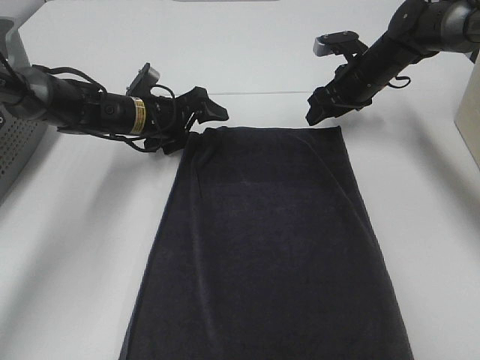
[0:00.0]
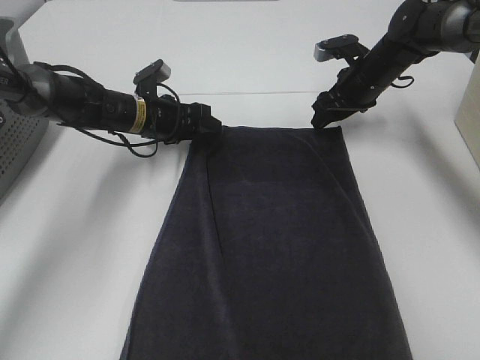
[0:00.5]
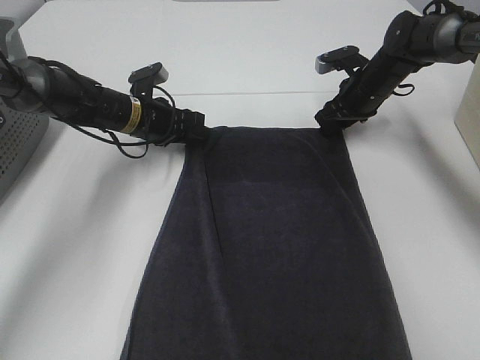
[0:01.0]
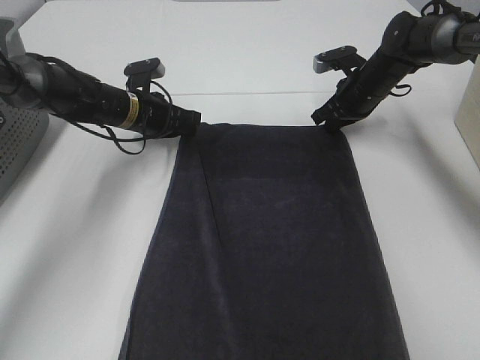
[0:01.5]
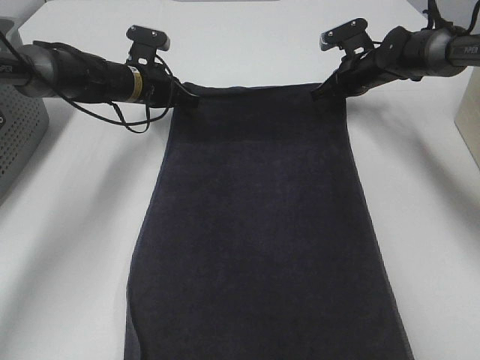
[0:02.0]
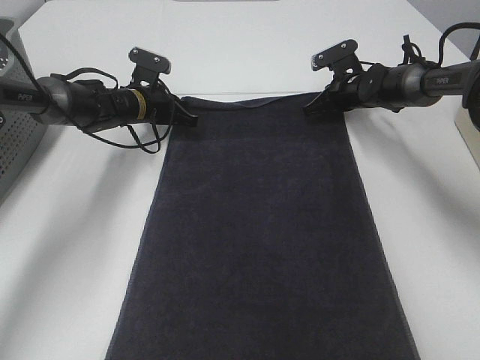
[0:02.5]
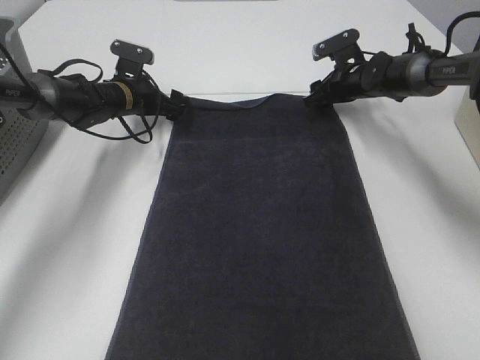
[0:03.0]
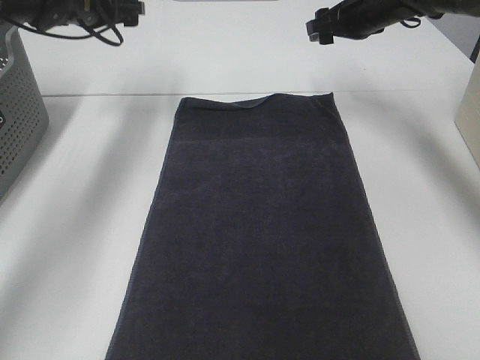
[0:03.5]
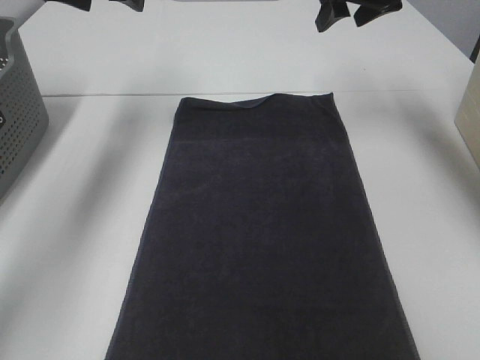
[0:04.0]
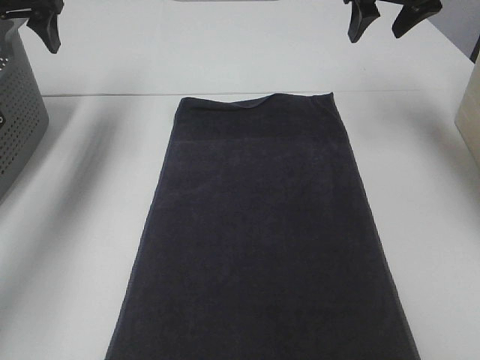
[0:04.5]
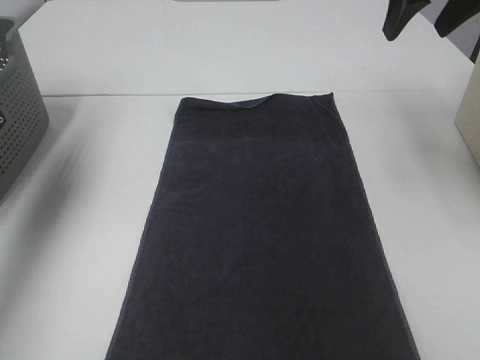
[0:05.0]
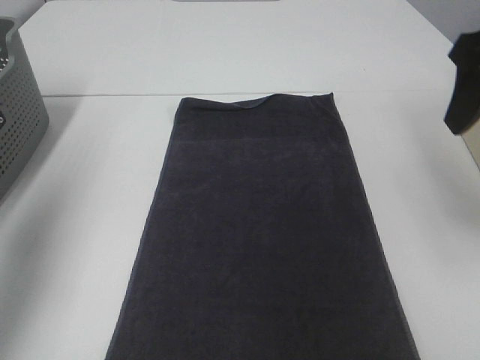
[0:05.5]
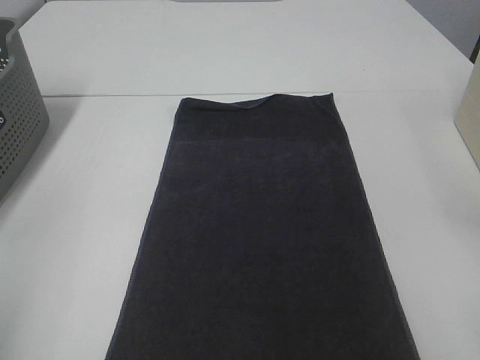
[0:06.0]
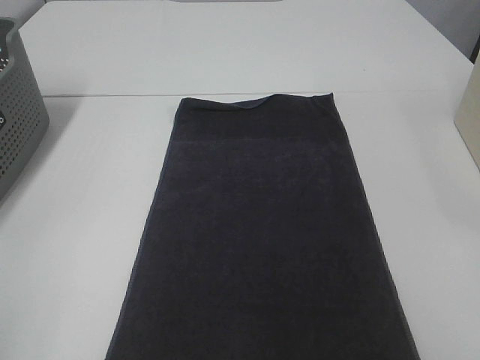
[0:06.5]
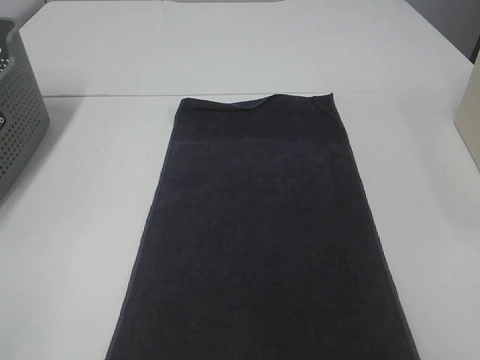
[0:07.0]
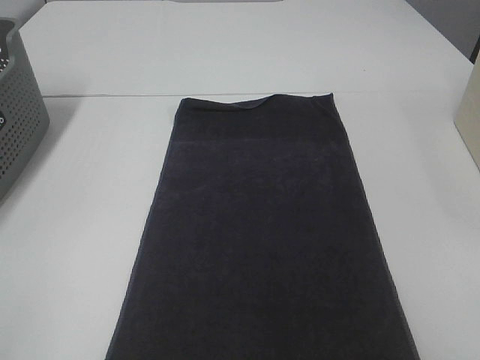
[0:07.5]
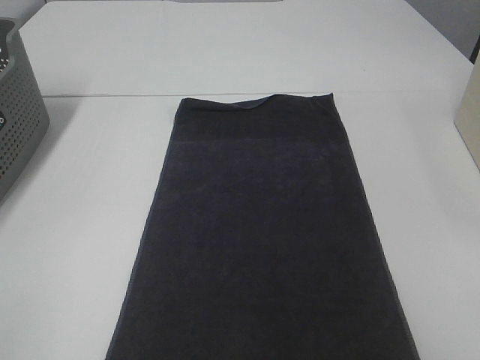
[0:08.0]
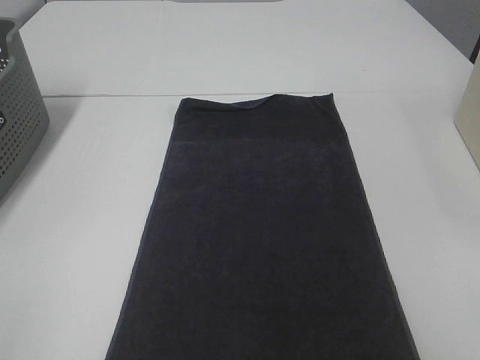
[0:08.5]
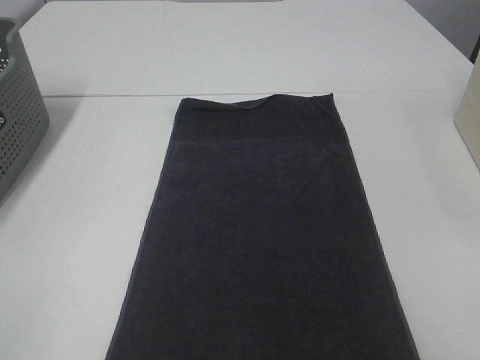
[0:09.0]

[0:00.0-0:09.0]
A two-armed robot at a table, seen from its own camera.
Task of the whole recording: Remove the towel and place it.
0:00.0 to 0:02.0: The left gripper heads forward, covering about 5 cm, and closes, while the right gripper closes up.
0:02.0 to 0:04.5: The right gripper shifts approximately 20 cm upward, and opens its fingers. Meanwhile the left gripper is displaced upward and to the left by about 25 cm, and opens its fingers.
0:04.5 to 0:07.0: Both grippers move backward, some 50 cm.

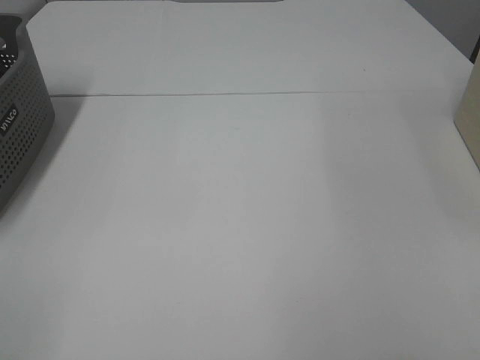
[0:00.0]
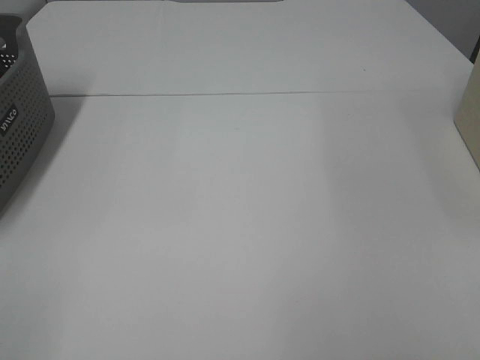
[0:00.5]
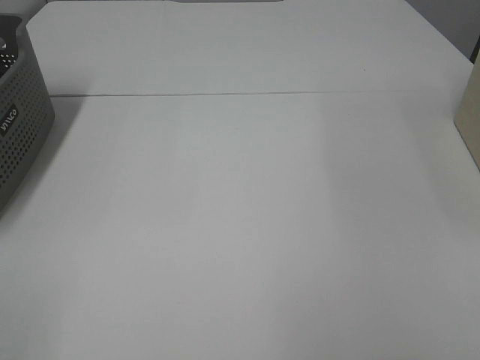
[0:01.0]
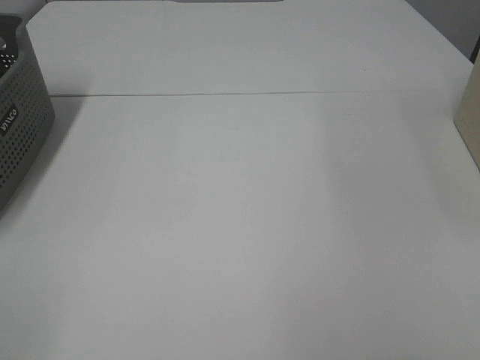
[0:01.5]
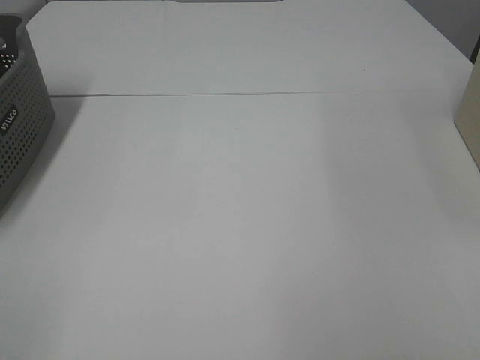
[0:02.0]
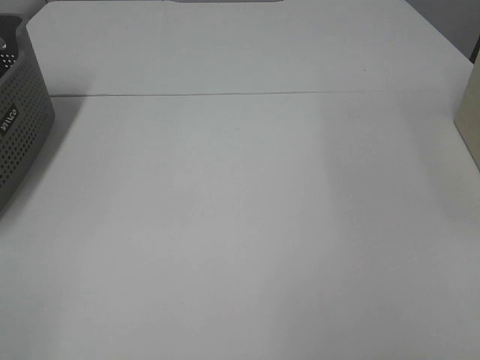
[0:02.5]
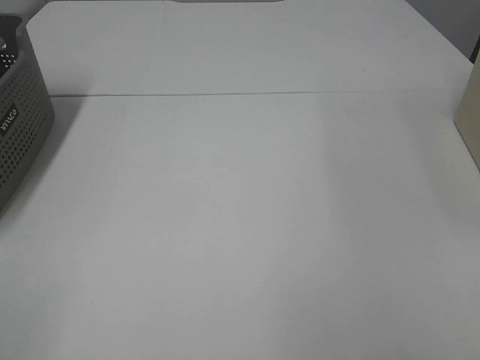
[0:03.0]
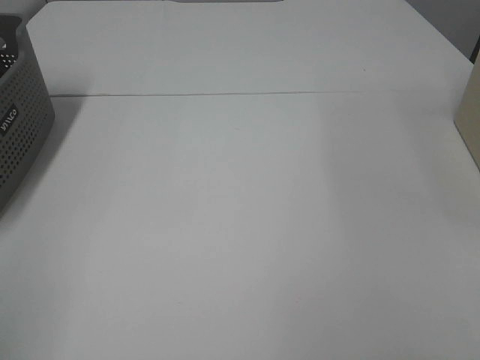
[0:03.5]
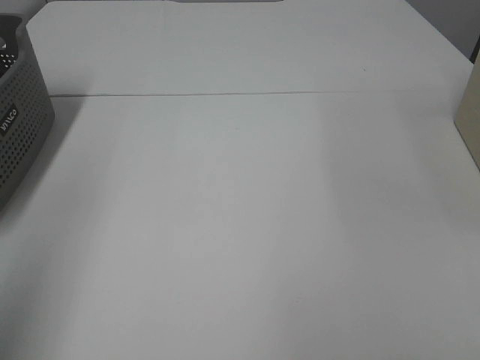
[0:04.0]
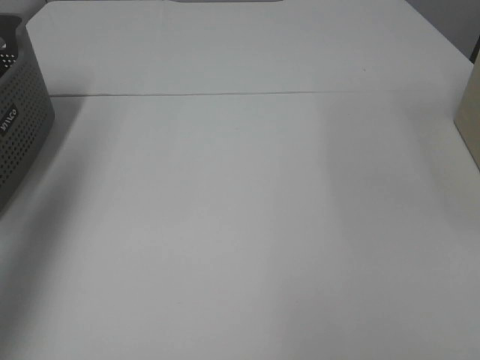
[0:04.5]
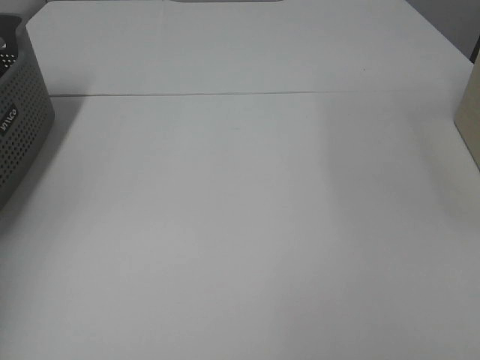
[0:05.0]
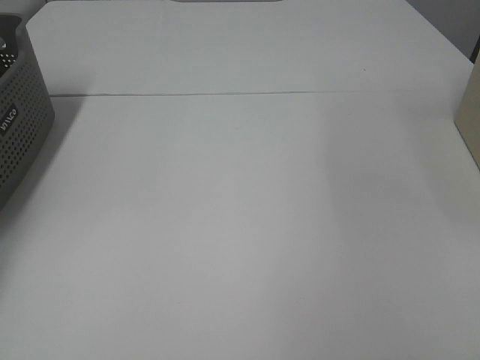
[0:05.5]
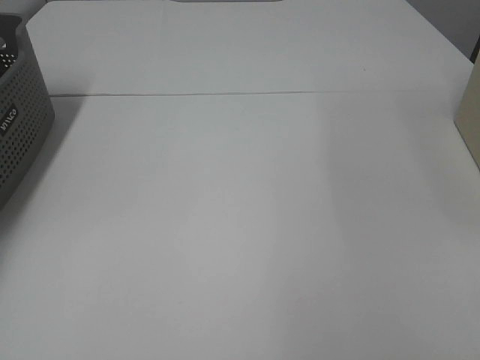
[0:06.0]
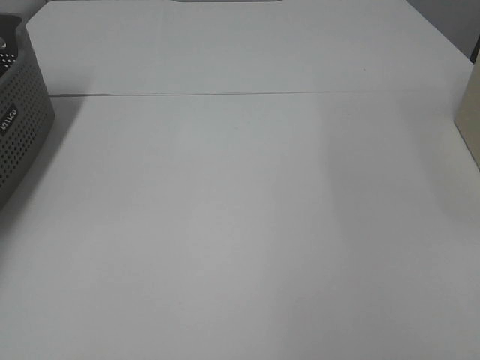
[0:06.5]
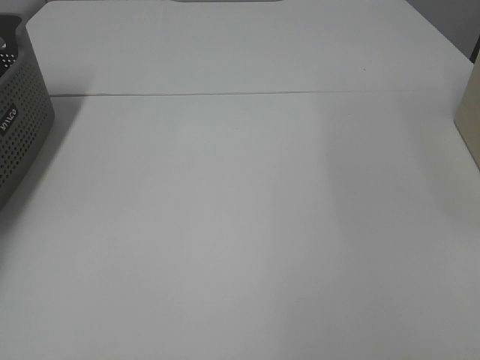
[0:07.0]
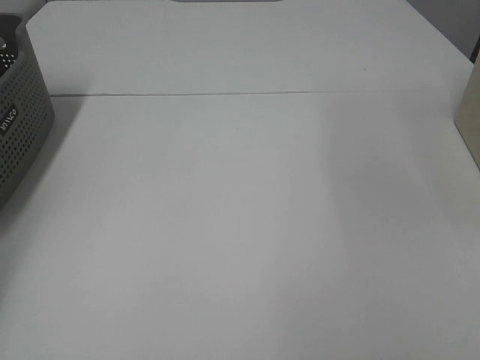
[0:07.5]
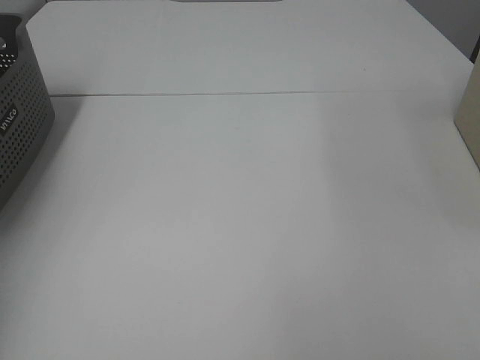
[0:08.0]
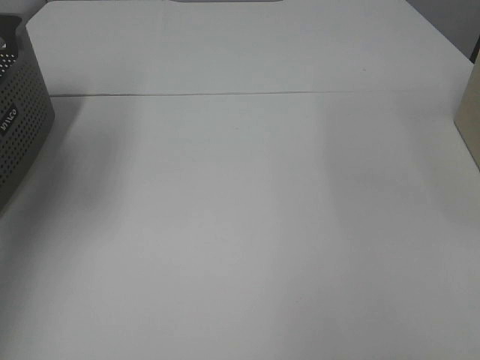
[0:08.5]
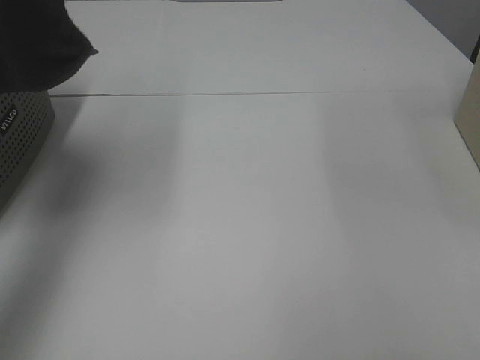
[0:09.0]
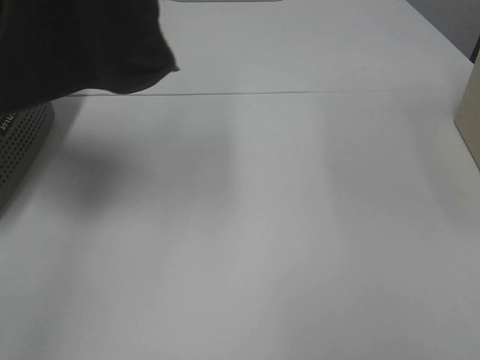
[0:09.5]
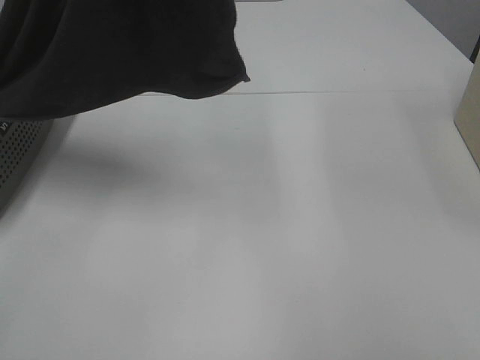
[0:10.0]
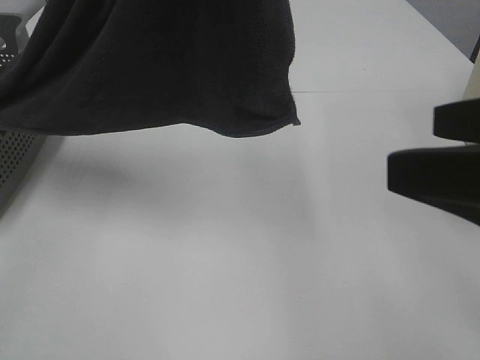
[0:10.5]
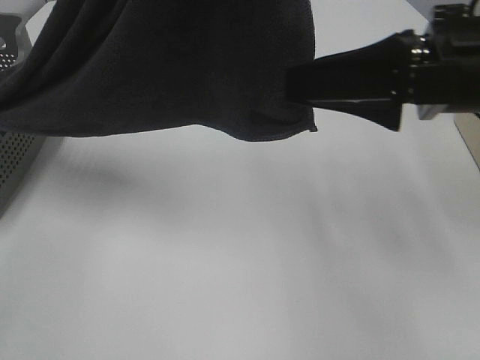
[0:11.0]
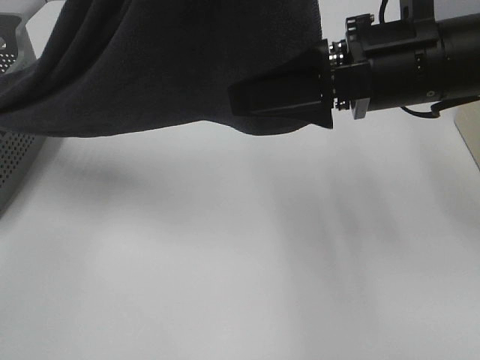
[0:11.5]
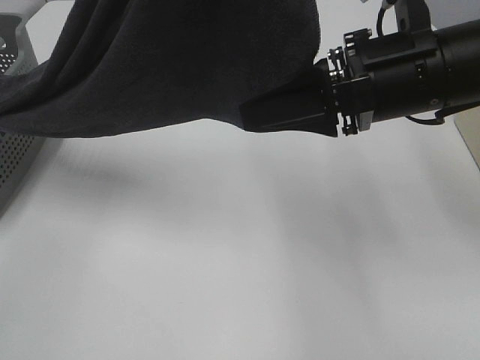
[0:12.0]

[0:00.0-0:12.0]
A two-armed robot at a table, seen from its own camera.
Task of the whole recording: Remove the towel and place it.
0:00.0 to 0:02.0: Neither gripper changes place.
0:02.0 to 0:04.0: The left gripper goes about 15 cm upward and forward.
0:04.0 to 0:06.0: The left gripper is displaced forward, downward and to the left by about 40 cm.
0:06.0 to 0:08.0: The left gripper moves upward, about 25 cm, and closes.
0:08.0 to 0:10.0: The left gripper goes about 25 cm to the right.
0:10.0 to 0:12.0: The right gripper is displaced forward and to the left by roughly 25 cm, and closes; the left gripper changes place by about 5 cm.

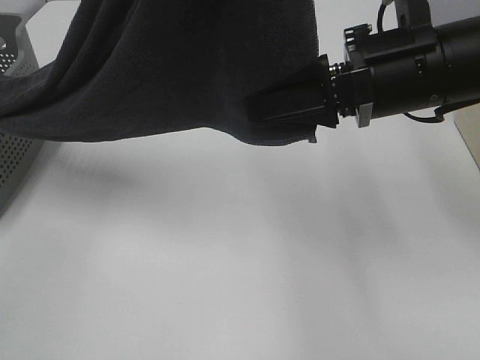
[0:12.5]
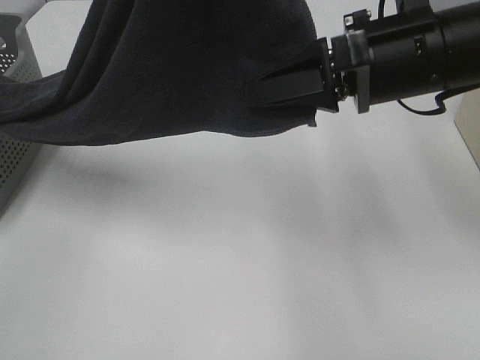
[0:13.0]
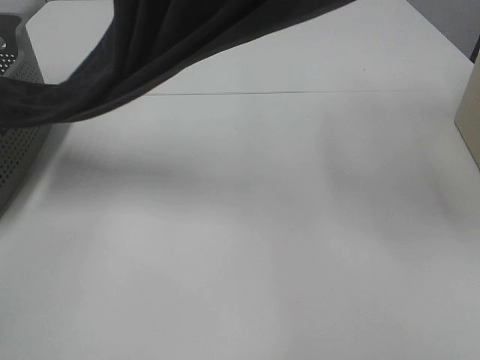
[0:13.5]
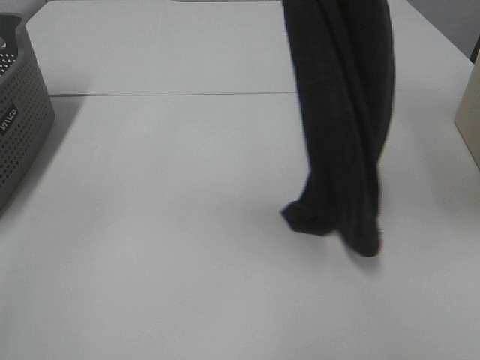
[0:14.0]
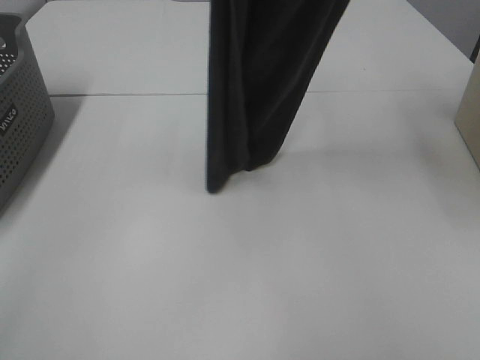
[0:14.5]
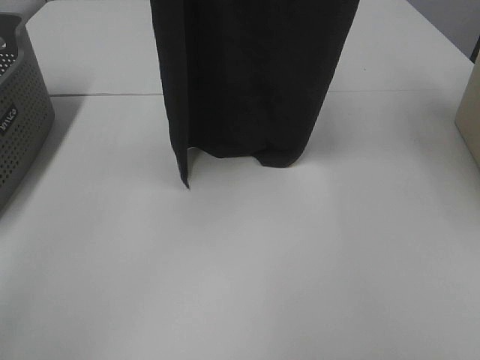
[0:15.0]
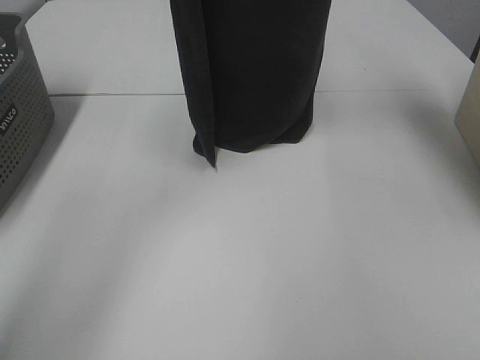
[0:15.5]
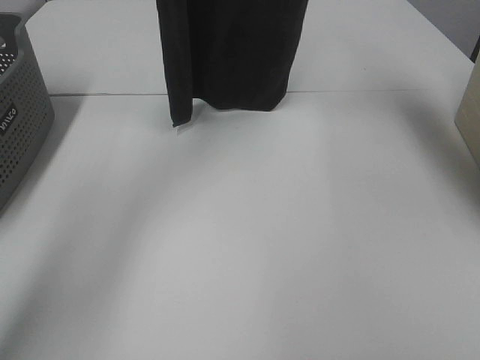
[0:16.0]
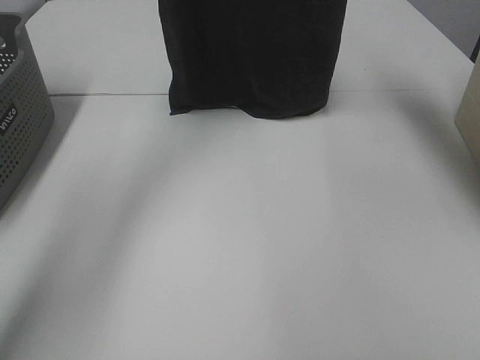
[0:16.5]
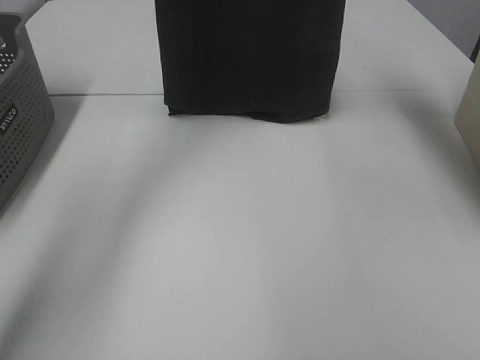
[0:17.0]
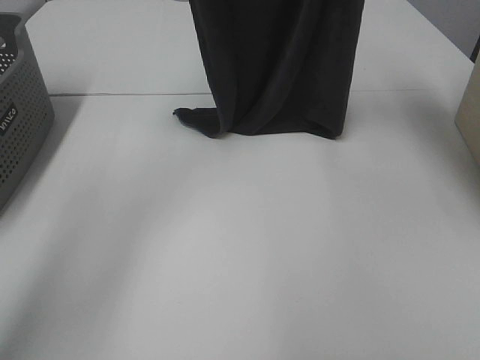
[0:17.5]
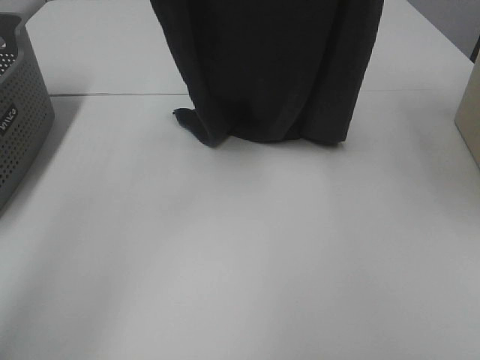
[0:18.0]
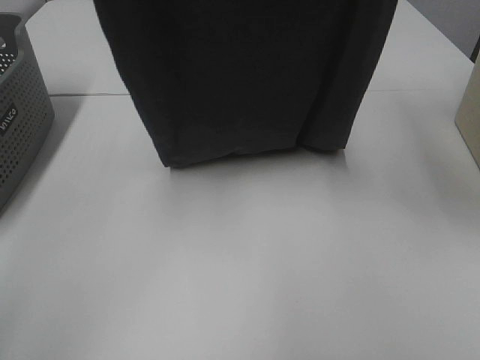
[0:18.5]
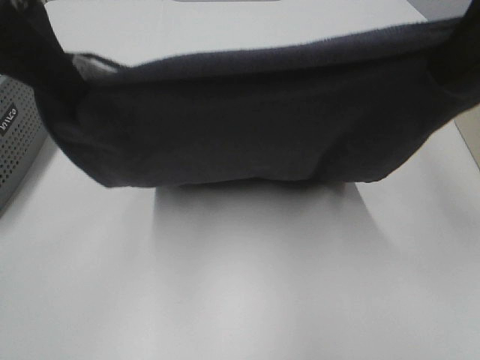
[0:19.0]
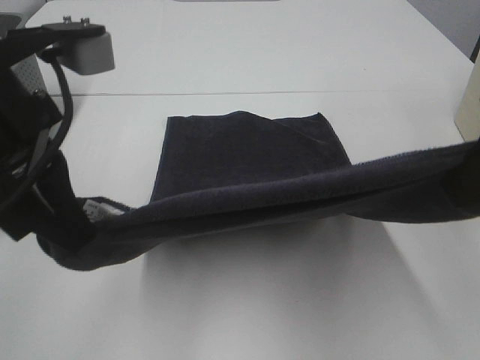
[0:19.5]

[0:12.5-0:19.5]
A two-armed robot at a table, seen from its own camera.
Task of the whole recording: Remove the towel and place it.
Step, 0:12.5 to 0:18.0: Left hand: spread the grey towel flat on the table.
Step, 0:12.5 to 0:18.0: Right hand: spread the grey towel flat on the table.
0:12.5 to 0:14.5: The left gripper heads forward, covering about 5 cm; the right gripper travels upward by approximately 25 cm.
0:14.5 to 0:16.0: Both grippers travel together forward, approximately 15 cm.
0:16.0 to 0:17.5: The left gripper travels downward by approximately 5 cm.
0:17.5 to 0:19.5: Both grippers travel together backward and downward, approximately 30 cm.
